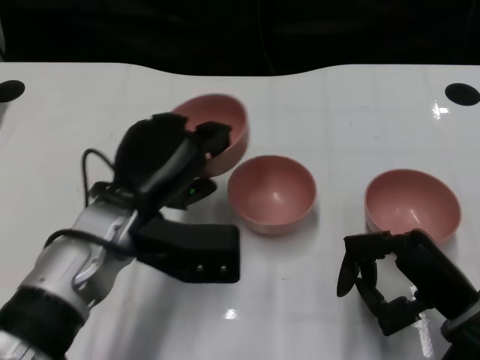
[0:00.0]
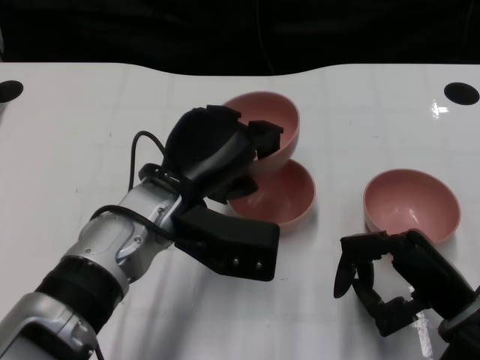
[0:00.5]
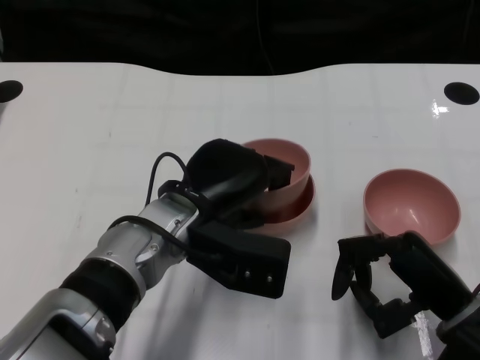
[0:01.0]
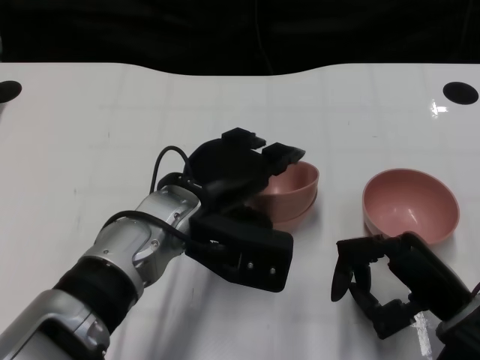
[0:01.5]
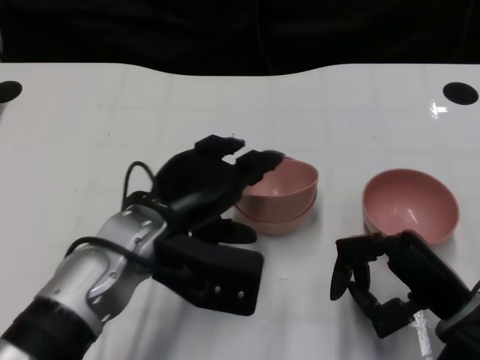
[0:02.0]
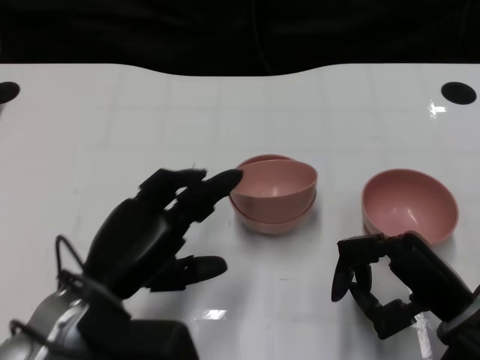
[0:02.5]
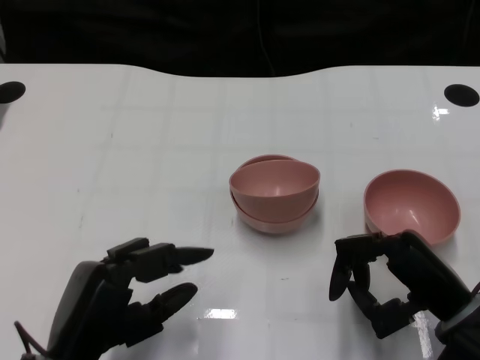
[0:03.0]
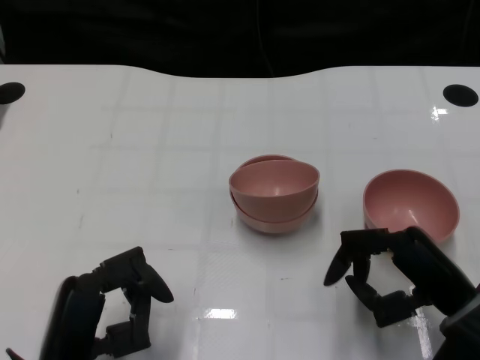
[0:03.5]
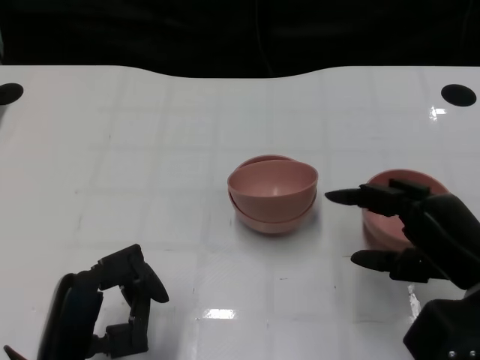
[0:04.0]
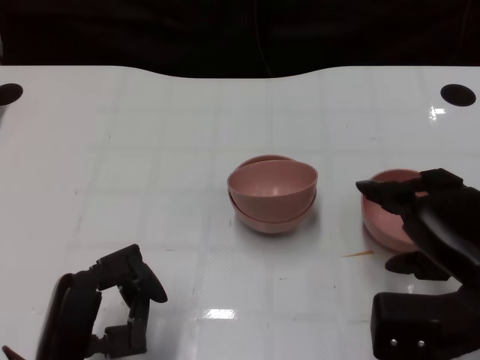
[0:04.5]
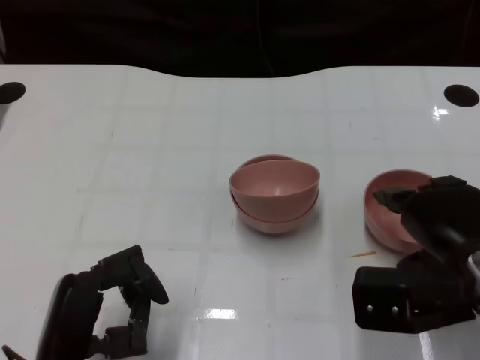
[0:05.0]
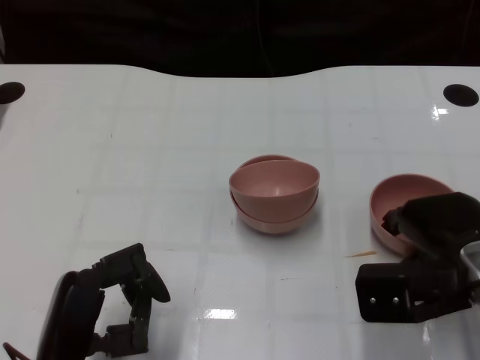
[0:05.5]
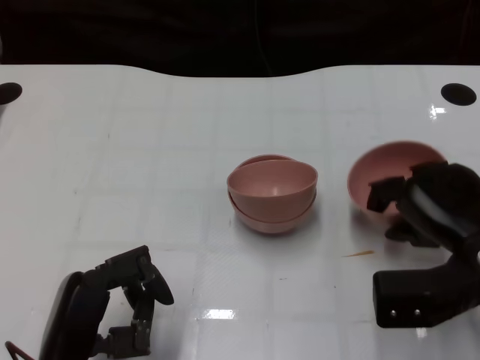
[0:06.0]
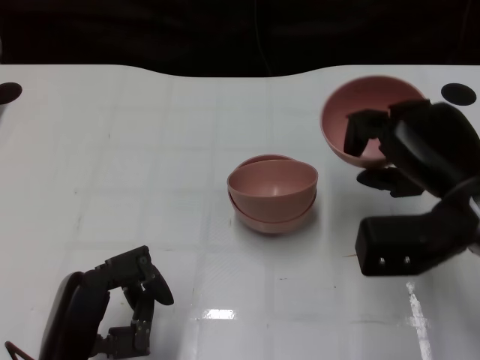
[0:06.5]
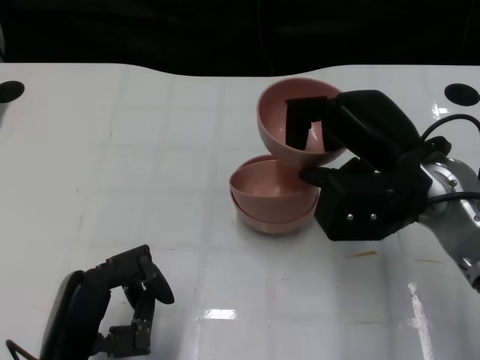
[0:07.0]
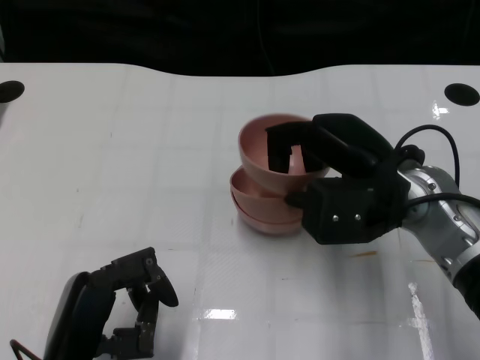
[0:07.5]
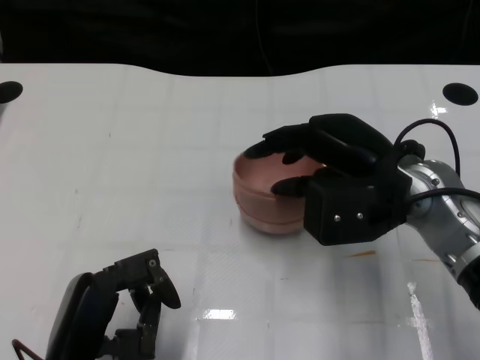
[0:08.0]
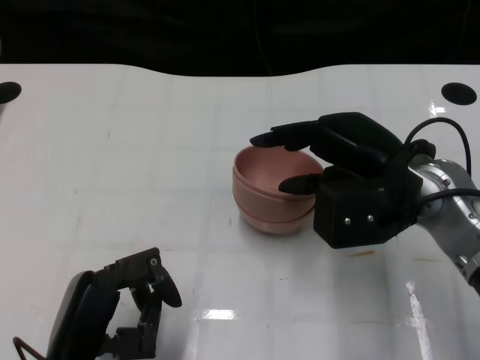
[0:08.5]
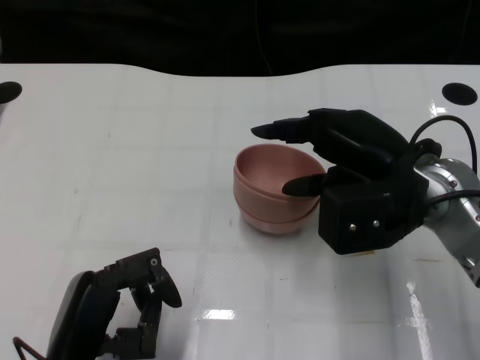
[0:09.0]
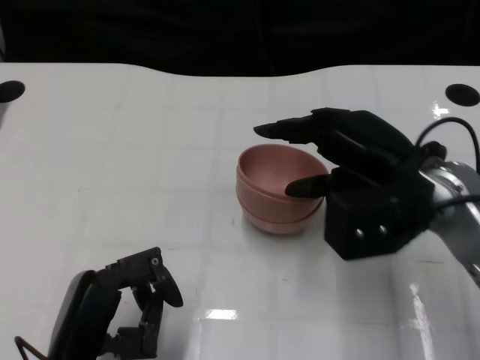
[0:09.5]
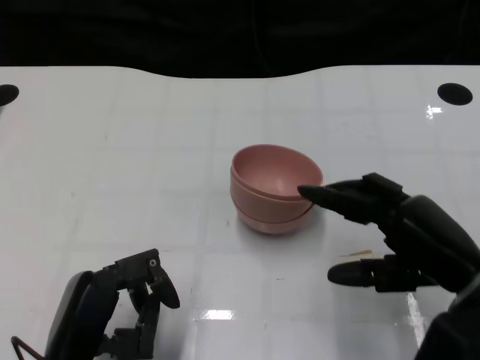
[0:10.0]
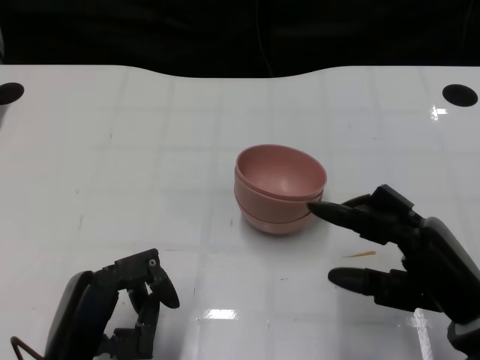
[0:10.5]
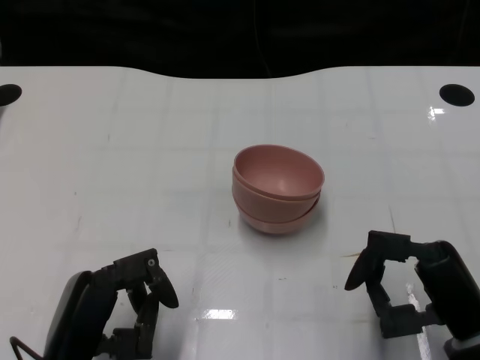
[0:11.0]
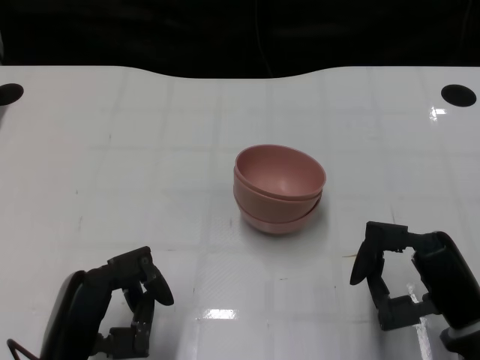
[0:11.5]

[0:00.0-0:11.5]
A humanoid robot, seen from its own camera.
Task of the whole recording: Pick up the bowl on one side of the table and place it on top of the middle bowl, then pick up the bowl on the other side of the table and place it on top of the middle bowls.
Step, 0:00.0 to 0:02.0: Place the bowl on the left onto the bowl in the middle with left gripper.
Step, 0:02.5 to 0:05.5: Grasp the bowl on the right with the right gripper.
Step, 0:06.0 to 0:09.5: Place the bowl on the right onto the bowl in the middle with right gripper.
0:02.0 to 0:04.0: The left hand moves backward, to the left and downward, approximately 15 cm.
0:06.0 to 0:07.5: The right hand is displaced to the left and upward by some 10 cm.
0:07.5 to 0:09.5: The hands move only a little.
0:09.5 to 0:11.5: The right hand travels downward, backward and to the right by about 15 cm.

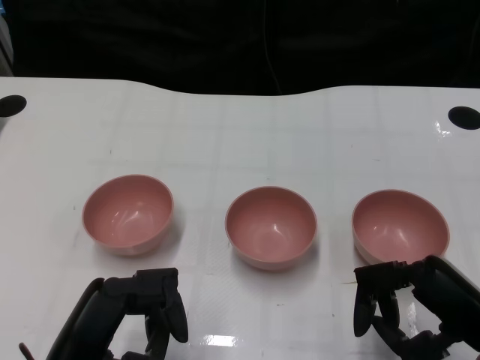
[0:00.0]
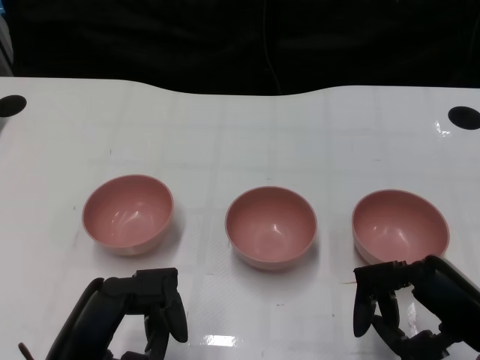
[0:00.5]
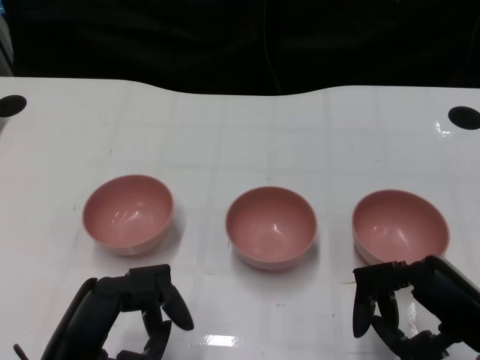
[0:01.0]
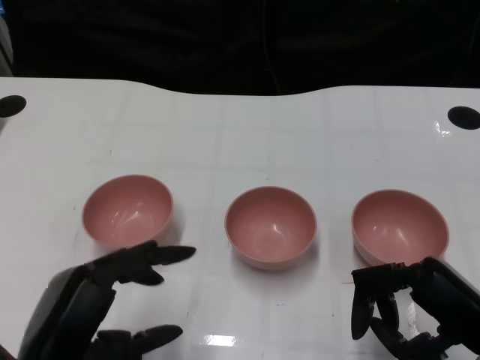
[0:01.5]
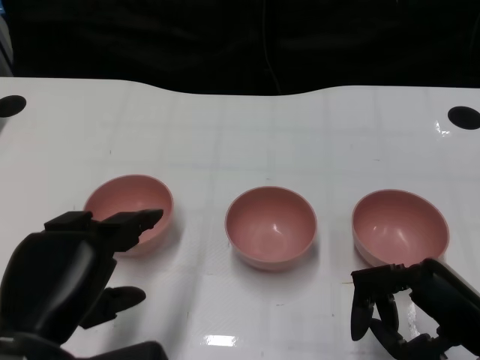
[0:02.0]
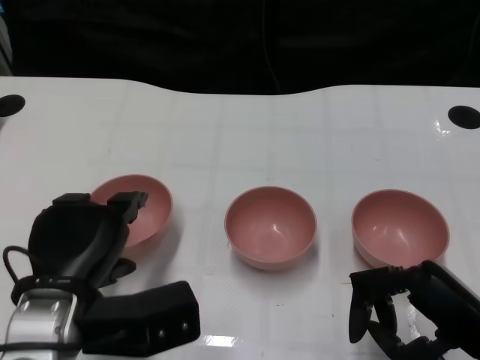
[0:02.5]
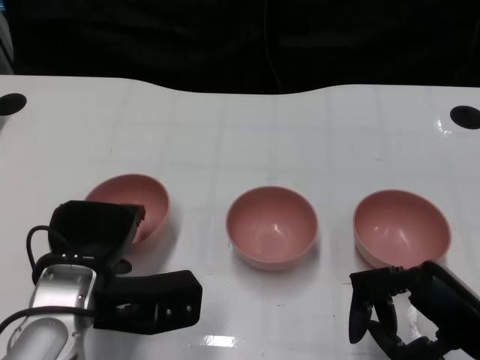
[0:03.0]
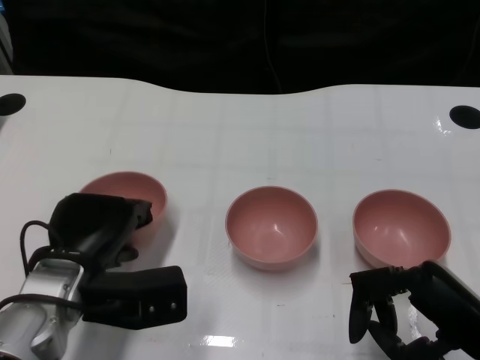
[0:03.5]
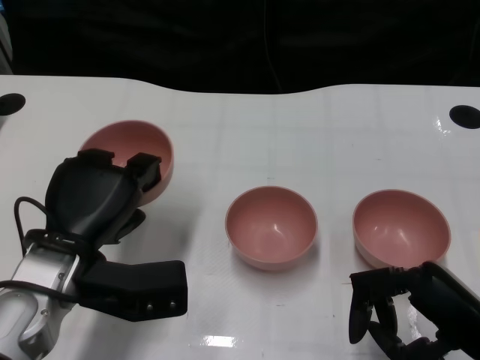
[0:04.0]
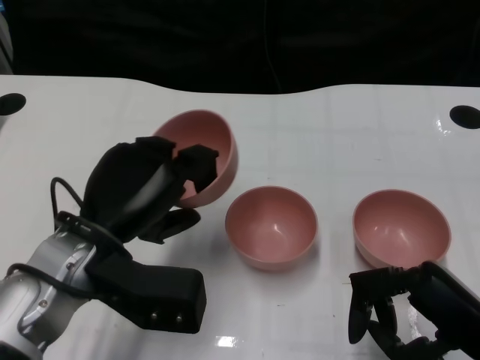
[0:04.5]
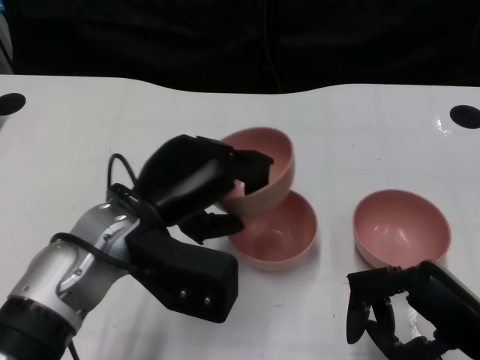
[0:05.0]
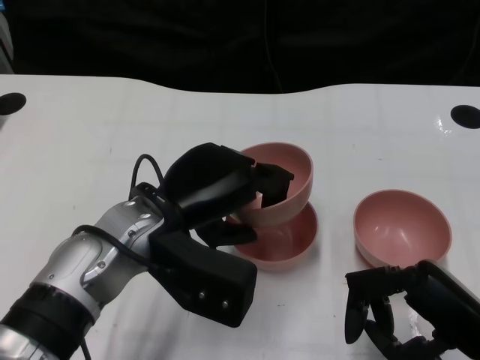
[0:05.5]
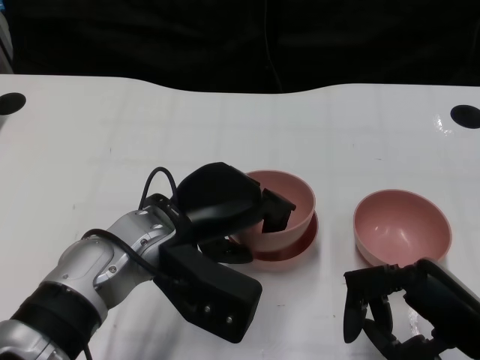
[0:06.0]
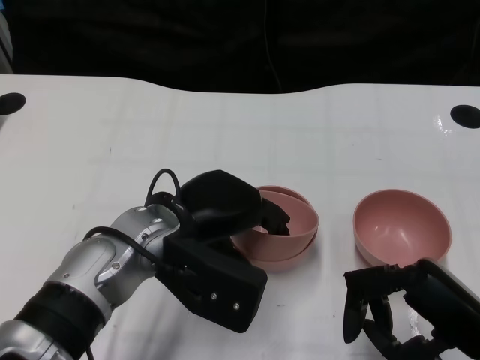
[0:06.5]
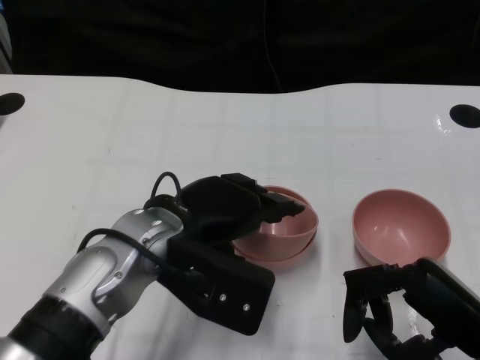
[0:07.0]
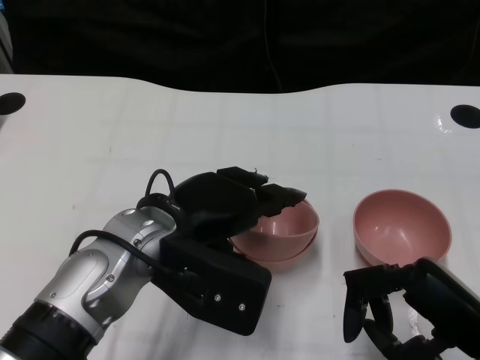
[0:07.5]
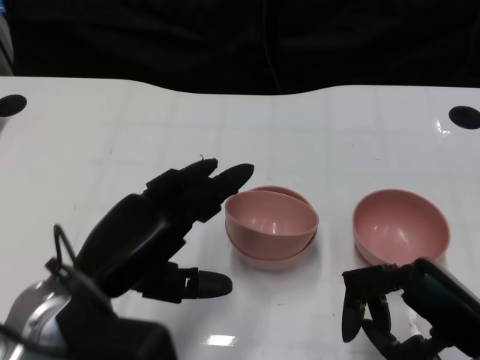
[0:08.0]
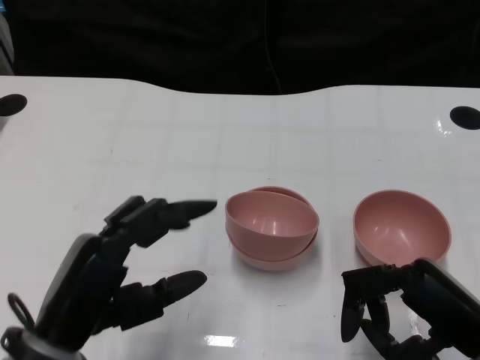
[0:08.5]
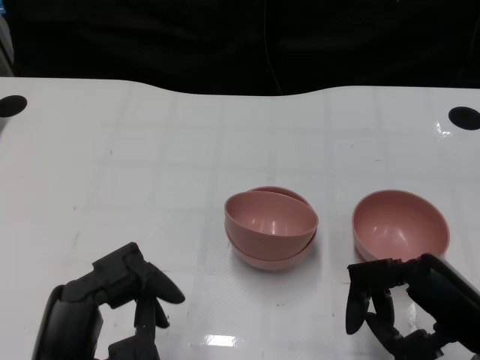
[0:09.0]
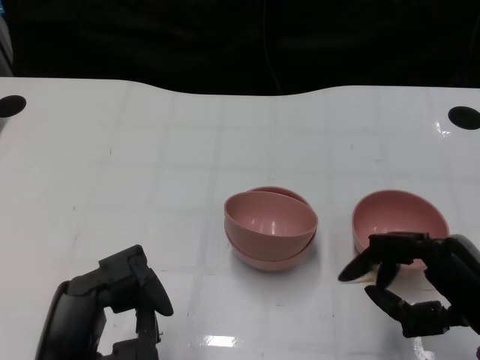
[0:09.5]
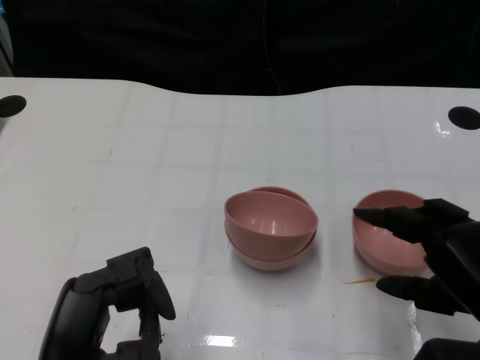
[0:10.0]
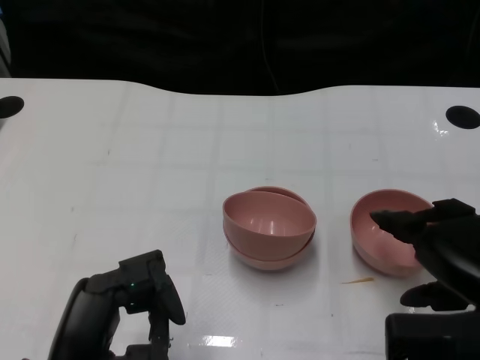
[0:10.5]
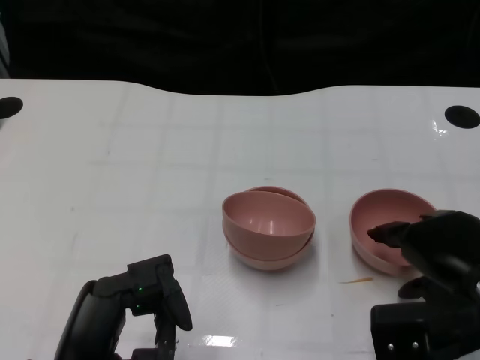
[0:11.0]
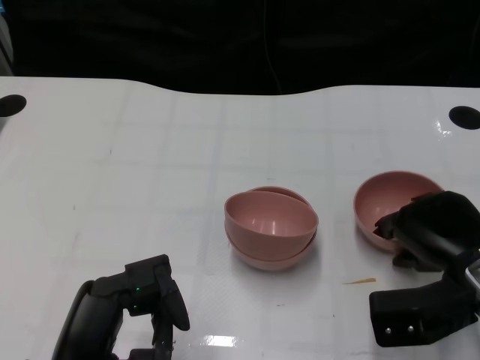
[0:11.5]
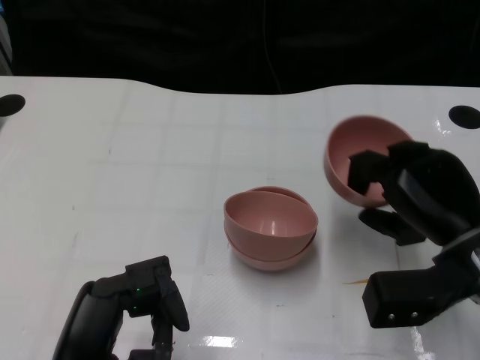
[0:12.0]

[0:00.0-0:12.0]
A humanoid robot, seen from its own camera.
Task of the whole recording: Pick up the bowl on one side of the table and place it on top of the middle bowl, then pick up the bowl on the other side of the table and place it on top of the middle bowls.
Step, 0:01.0 to 0:03.5: Grasp the bowl on the left with the left gripper.
Step, 0:04.0 to 0:07.5: Place the bowl on the left onto the bowl in the middle with left gripper.
Step, 0:08.0 to 0:11.5: Grasp the bowl on the right with the right gripper.
0:02.0 to 0:04.0: The left hand goes about 10 cm forward.
0:04.0 to 0:06.0: The left hand moves to the right, some 10 cm.
0:06.0 to 0:08.0: The left hand heads to the left and backward, covering approximately 10 cm.
0:08.0 to 0:10.0: The left hand heads backward, covering approximately 10 cm.
0:10.0 to 0:12.0: The right hand goes some 10 cm forward.

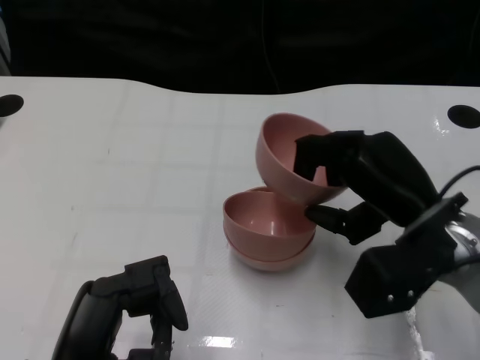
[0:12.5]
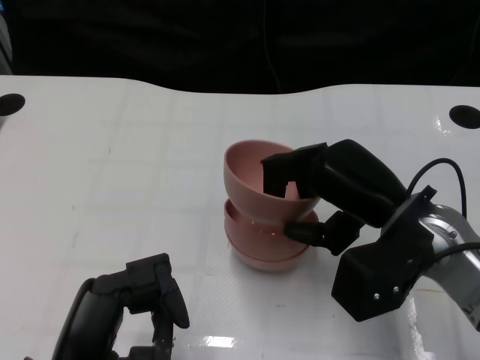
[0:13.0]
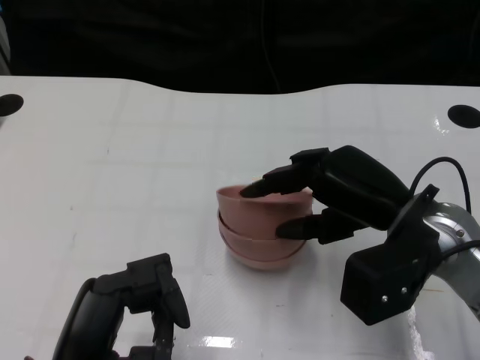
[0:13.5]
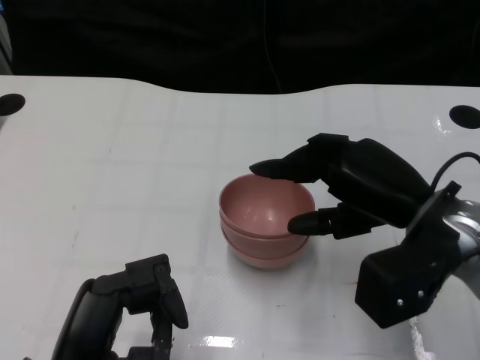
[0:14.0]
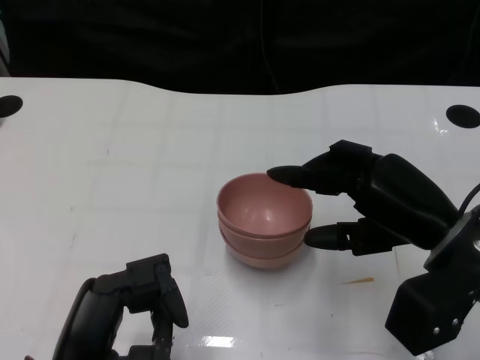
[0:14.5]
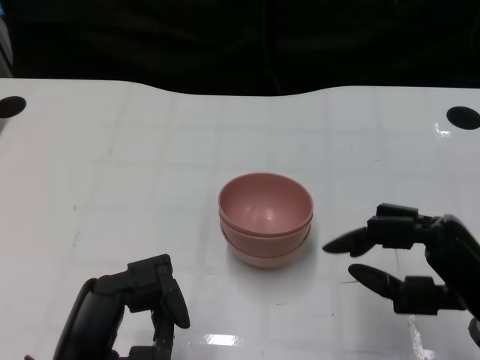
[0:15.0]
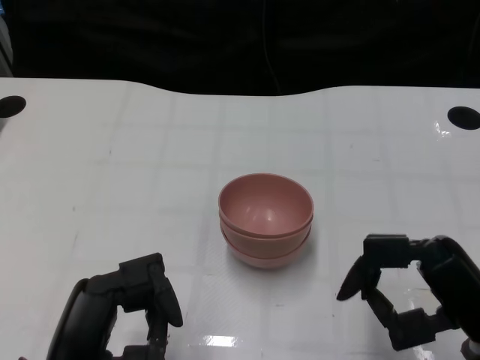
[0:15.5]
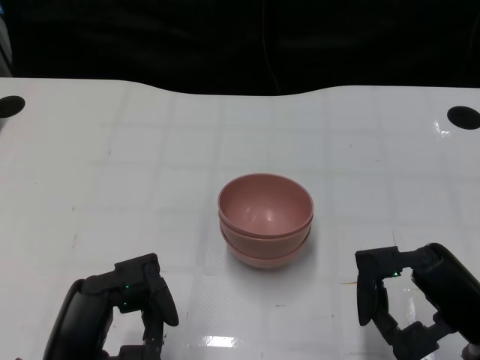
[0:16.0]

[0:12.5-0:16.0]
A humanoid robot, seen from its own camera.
Task of the whole recording: Pick up the bowl on one side of the table and place it on top of the middle bowl, then pick up the bowl on the other side of the table and place it on top of the middle bowls.
Step, 0:12.5 to 0:13.5: Place the bowl on the right onto the bowl in the middle with right gripper.
0:12.5 to 0:14.5: There are only small adjustments of the hands.
0:14.5 to 0:16.0: The right hand shifts approximately 5 cm backward.
